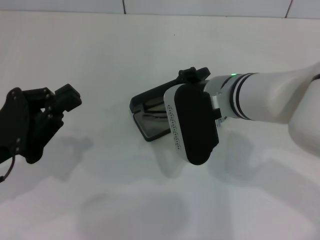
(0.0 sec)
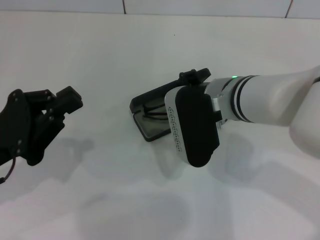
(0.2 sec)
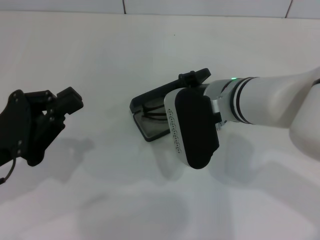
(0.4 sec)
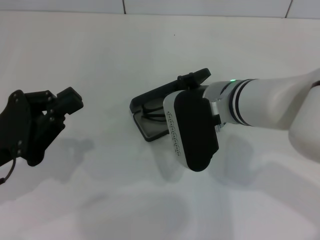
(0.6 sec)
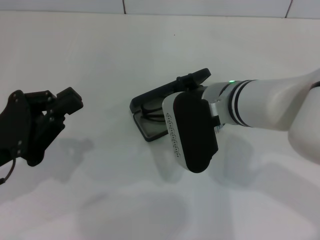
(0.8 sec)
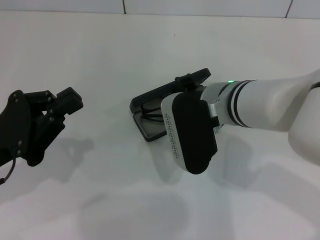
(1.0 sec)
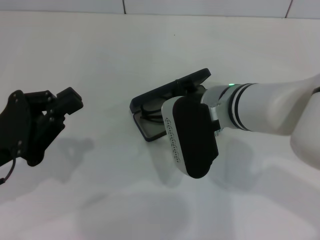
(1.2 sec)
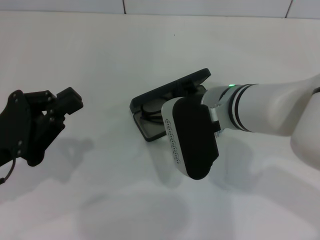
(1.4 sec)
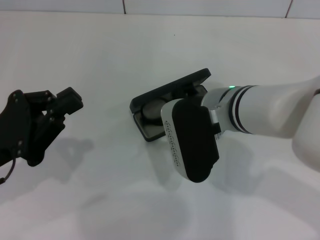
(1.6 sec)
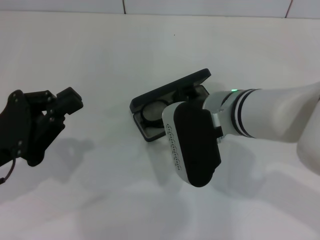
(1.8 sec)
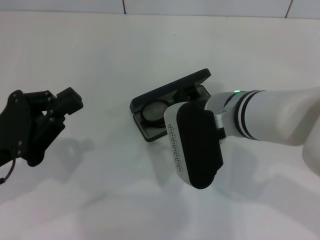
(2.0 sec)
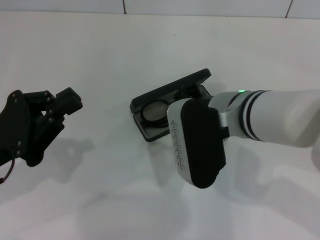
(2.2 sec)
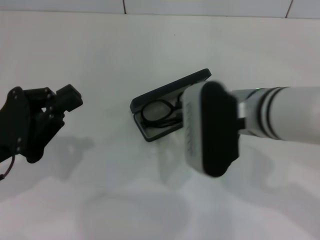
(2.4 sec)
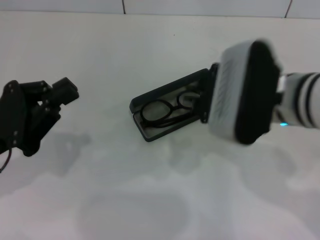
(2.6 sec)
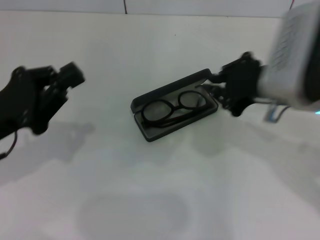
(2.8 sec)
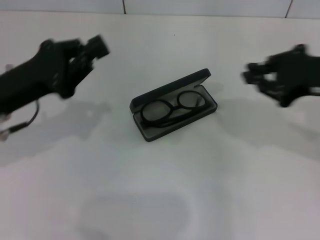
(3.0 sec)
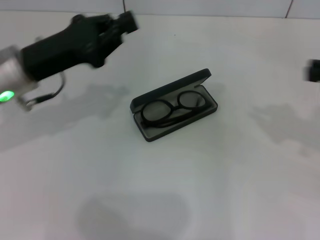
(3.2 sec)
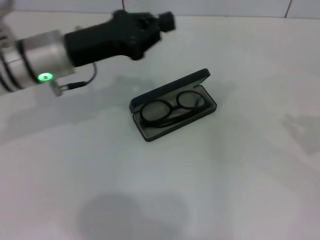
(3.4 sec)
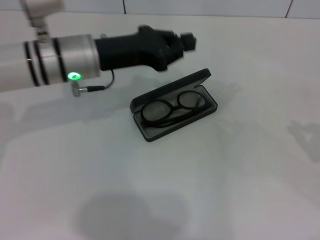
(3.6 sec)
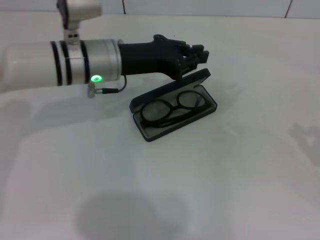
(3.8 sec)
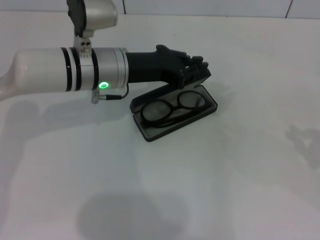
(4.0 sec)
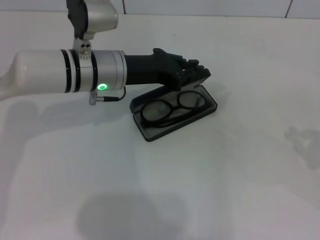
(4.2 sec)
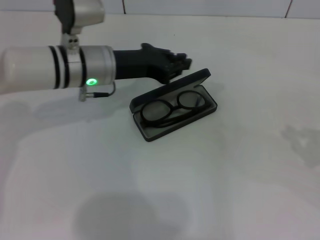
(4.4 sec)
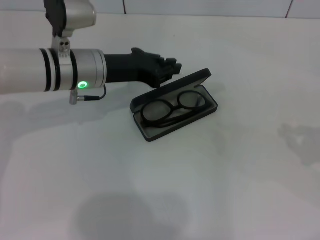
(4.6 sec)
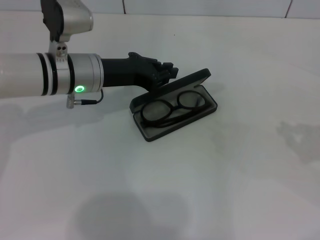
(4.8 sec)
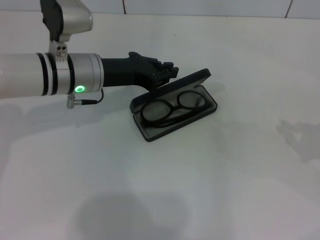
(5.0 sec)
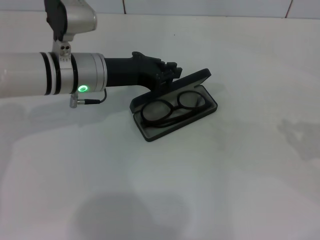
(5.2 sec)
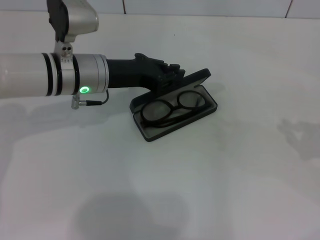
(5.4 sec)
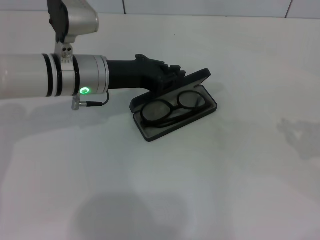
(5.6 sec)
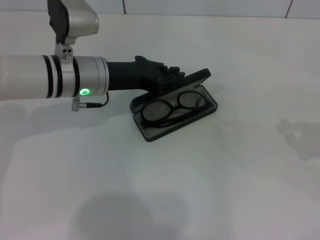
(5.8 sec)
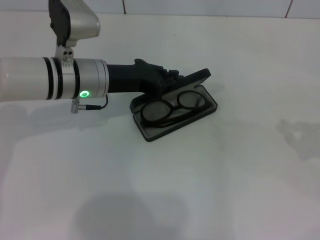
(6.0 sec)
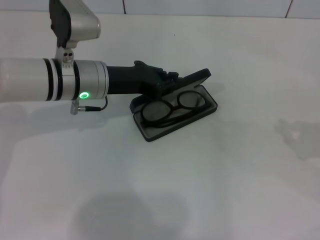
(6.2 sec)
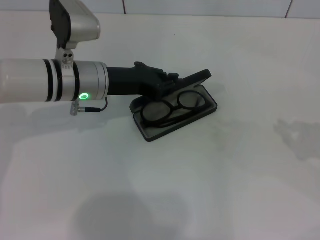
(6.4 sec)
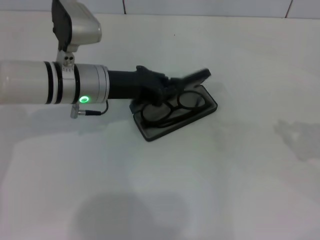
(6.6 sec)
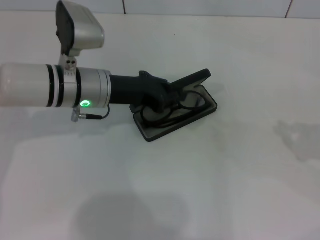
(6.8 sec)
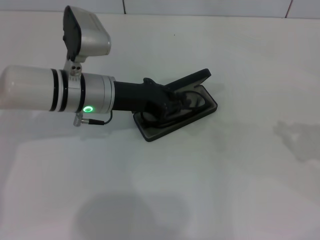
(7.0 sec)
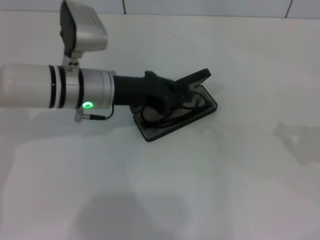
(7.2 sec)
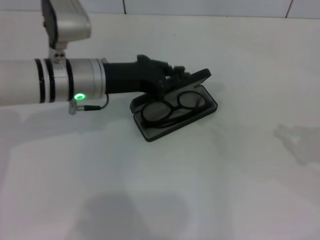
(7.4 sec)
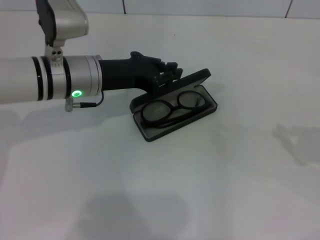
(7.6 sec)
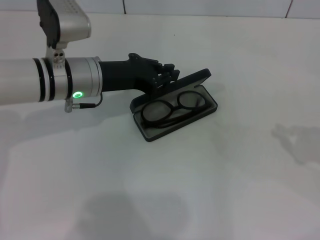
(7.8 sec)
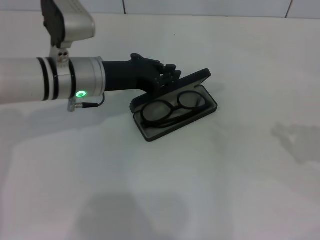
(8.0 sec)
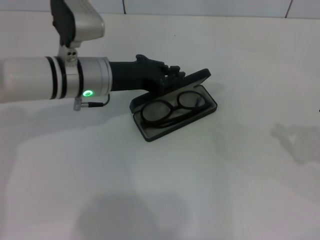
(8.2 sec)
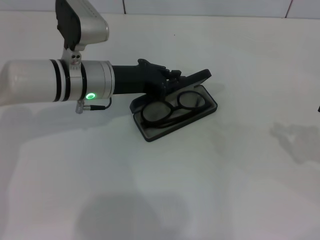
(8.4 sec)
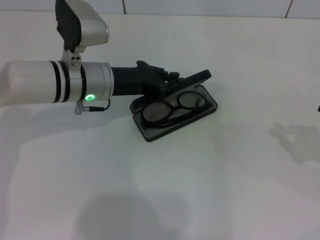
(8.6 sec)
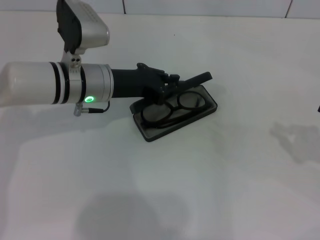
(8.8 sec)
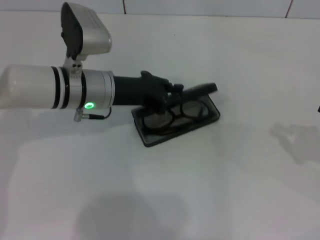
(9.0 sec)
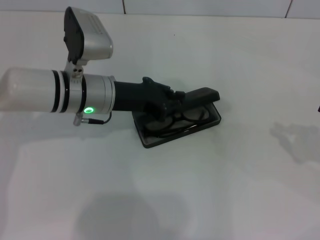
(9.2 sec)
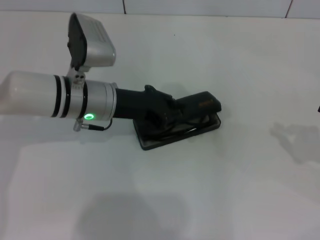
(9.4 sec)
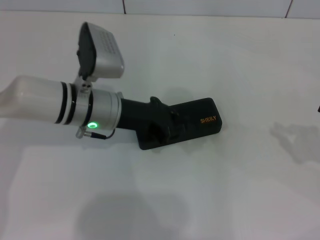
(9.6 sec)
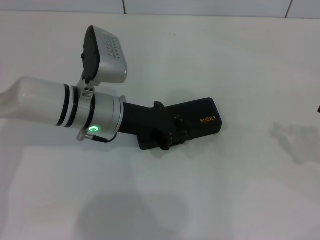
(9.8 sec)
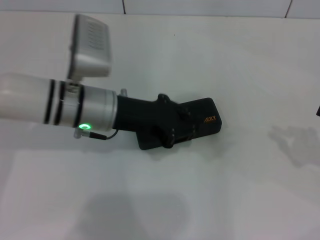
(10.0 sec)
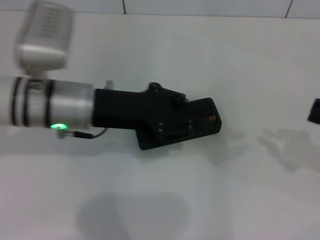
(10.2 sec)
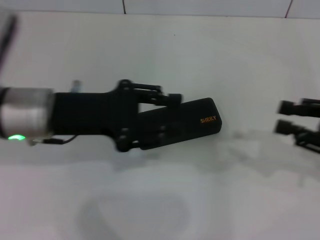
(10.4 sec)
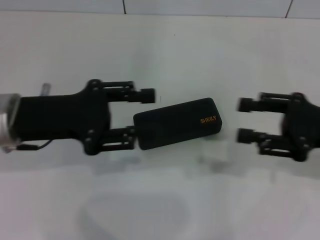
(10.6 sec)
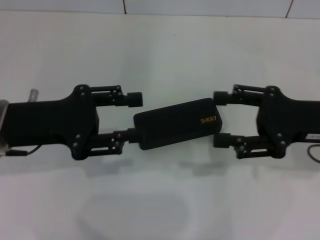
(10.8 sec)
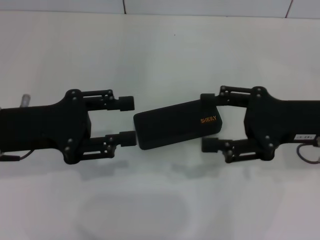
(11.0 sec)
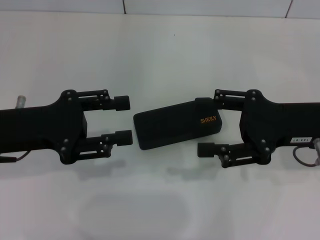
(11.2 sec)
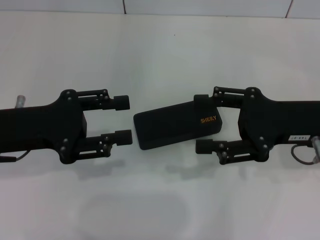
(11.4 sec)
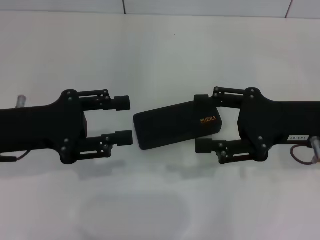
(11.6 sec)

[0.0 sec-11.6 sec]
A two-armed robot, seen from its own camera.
Step, 0.0 sec to 2.0 sec: Put the glasses into the case with your right hand.
Step, 2.4 sec to 9.4 sec: Close the glasses case with your left hand.
0.0 sec to 1.4 sec: The grippers stay close to where they were, moving slightly.
1.4 sec to 2.8 sec: The right gripper moves to the right and upward, approximately 10 cm.
2.8 sec to 4.4 sec: The left gripper heads forward and to the right, covering about 20 cm. The right gripper heads to the right, covering approximately 20 cm.
4.4 sec to 8.8 sec: The grippers stay close to where they were, moving slightly.
8.8 sec to 10.2 sec: The left gripper moves backward, about 5 cm.
10.2 sec to 11.6 sec: Both grippers travel together to the left, approximately 10 cm. The left gripper opens up; the right gripper opens.

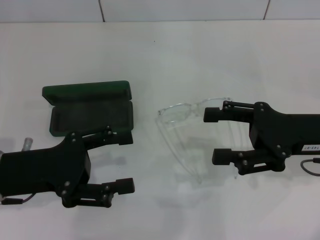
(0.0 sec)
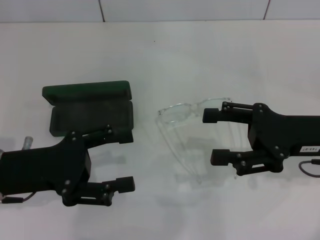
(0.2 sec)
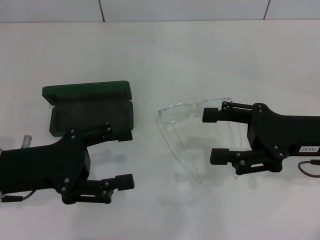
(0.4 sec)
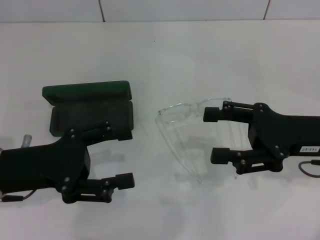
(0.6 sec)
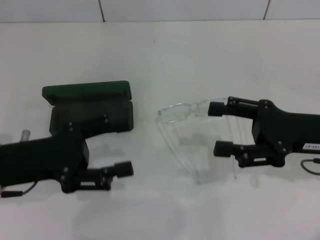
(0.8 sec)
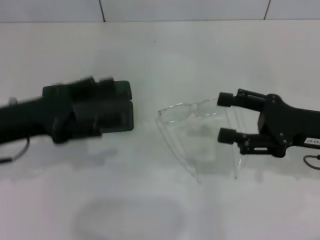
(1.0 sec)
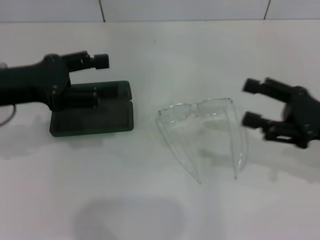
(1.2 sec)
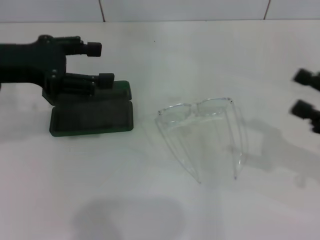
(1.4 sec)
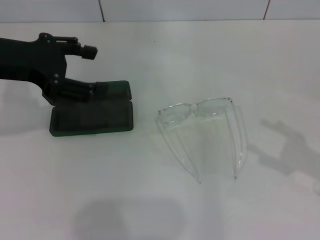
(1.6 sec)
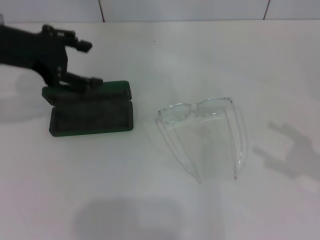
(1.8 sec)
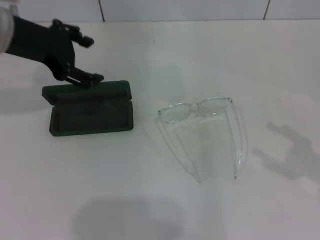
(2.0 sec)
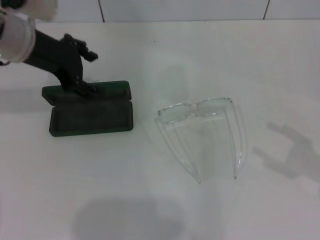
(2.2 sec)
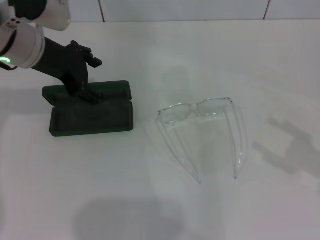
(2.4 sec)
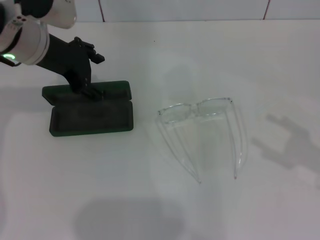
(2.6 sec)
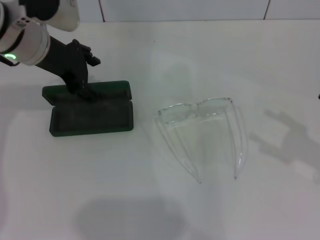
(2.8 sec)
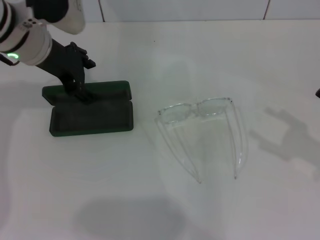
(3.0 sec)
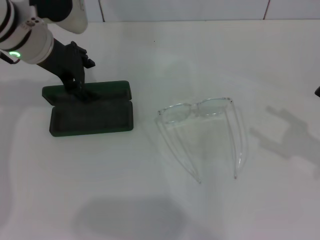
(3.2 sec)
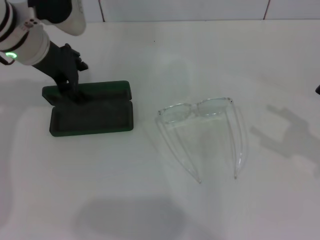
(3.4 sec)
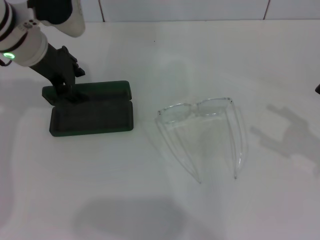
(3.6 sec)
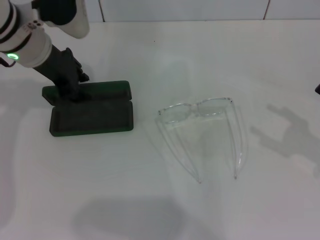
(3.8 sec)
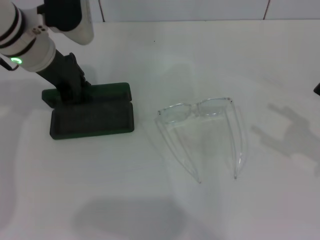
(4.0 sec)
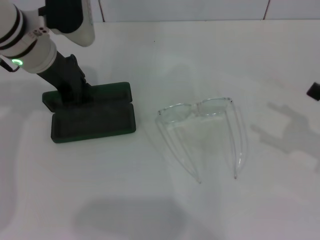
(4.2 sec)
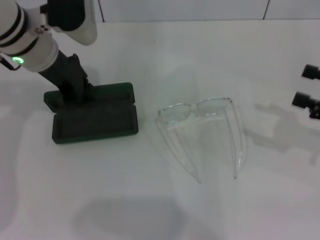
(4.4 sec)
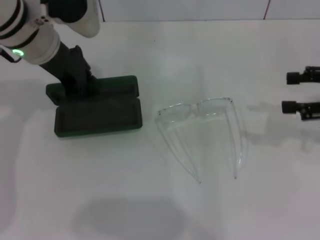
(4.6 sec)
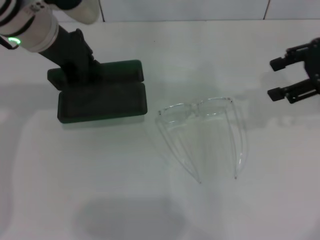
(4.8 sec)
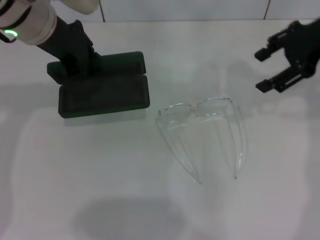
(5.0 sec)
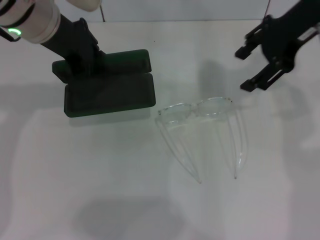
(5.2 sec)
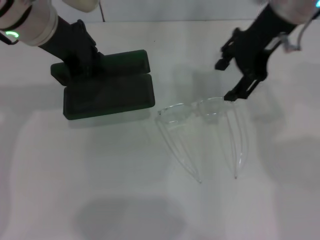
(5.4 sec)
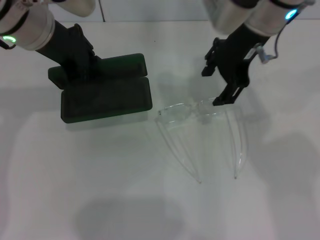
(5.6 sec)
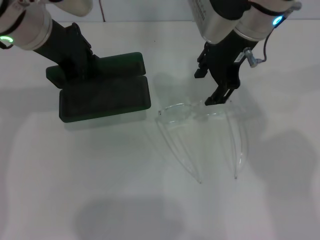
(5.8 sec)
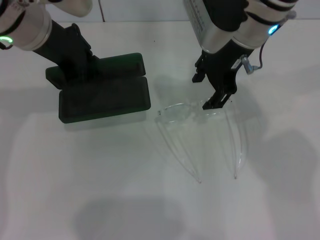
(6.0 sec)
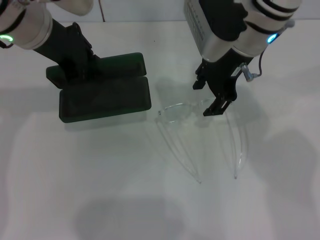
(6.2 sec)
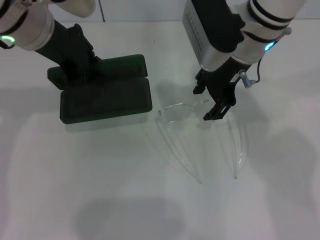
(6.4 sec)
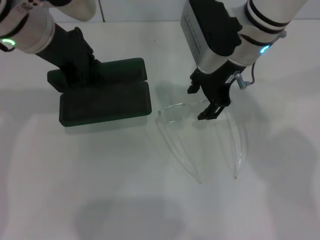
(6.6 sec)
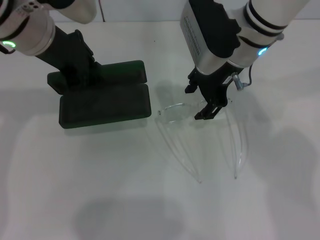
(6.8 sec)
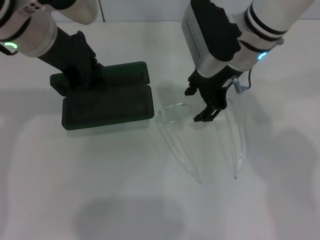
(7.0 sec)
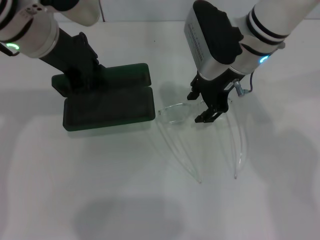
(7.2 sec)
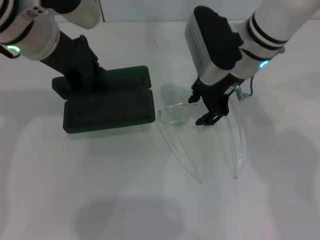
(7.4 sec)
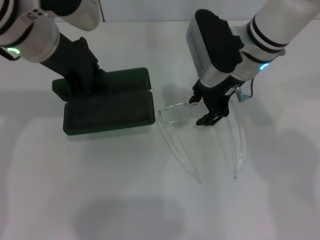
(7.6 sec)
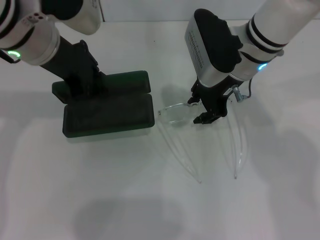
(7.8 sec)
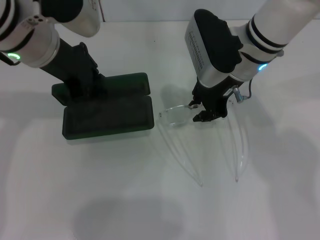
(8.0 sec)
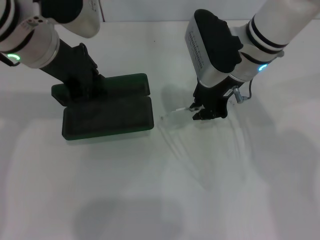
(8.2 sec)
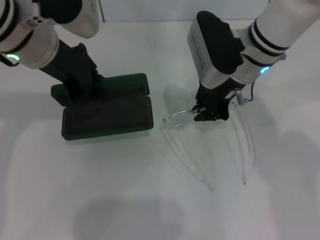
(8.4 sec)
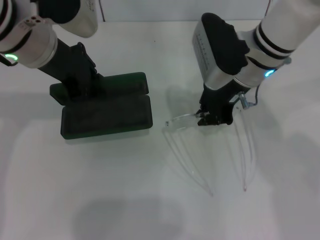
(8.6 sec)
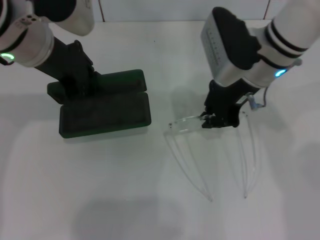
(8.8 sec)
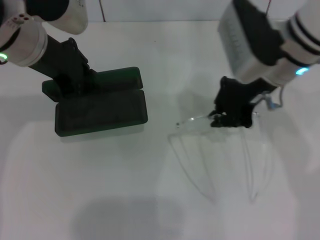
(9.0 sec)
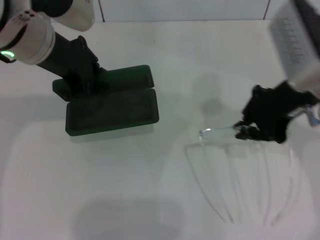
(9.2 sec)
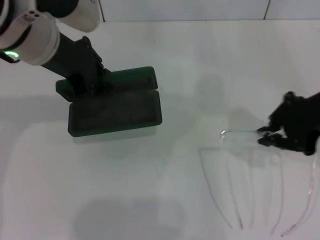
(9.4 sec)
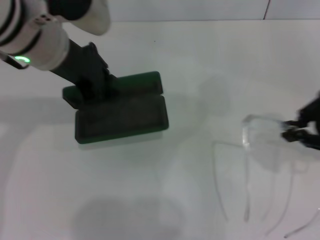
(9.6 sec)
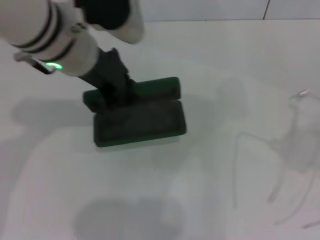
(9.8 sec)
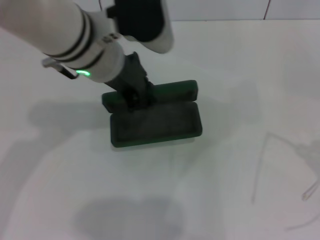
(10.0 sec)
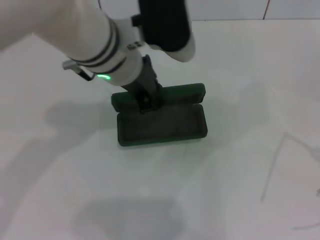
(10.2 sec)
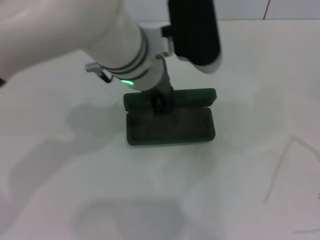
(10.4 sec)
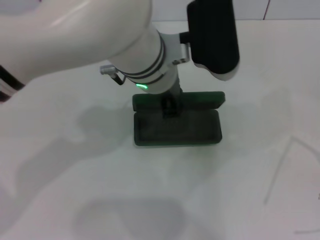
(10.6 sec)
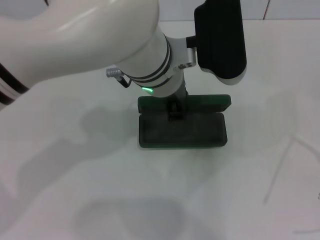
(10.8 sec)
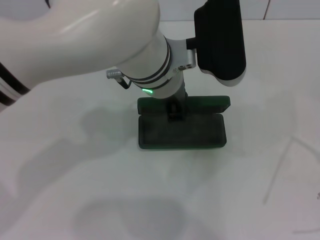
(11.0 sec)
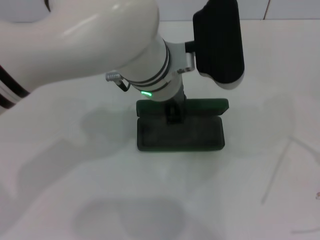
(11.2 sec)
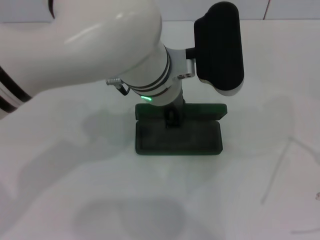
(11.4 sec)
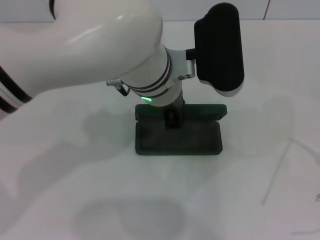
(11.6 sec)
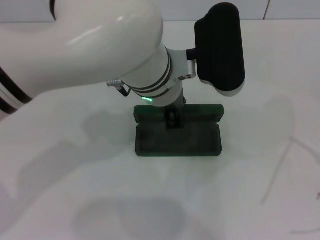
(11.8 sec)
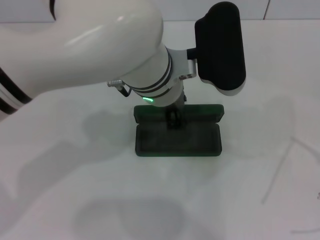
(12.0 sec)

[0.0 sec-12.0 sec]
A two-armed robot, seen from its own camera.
Step, 0.0 sec to 4.0 sec: Grab the glasses case with your left hand.
Step, 4.4 sec to 8.6 sec: Grab the eyeglass frame with your right hand.
0.0 sec to 1.6 sec: The right gripper shifts roughly 15 cm to the right and backward; the left gripper goes some 15 cm upward and forward.
1.6 sec to 3.0 sec: The left gripper goes approximately 10 cm forward and to the right.
3.0 sec to 4.4 sec: The left gripper closes.
4.4 sec to 6.0 sec: The right gripper is displaced to the left and forward by about 30 cm; the left gripper travels upward by approximately 5 cm.
6.0 sec to 7.6 sec: The right gripper heads downward, covering roughly 5 cm.
7.6 sec to 9.0 sec: The right gripper shifts by about 5 cm, and closes.
9.0 sec to 10.4 sec: The left gripper shifts some 15 cm to the right. The right gripper heads to the right and backward, covering roughly 35 cm.
